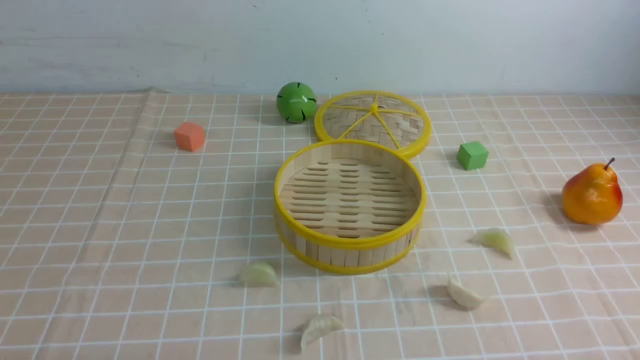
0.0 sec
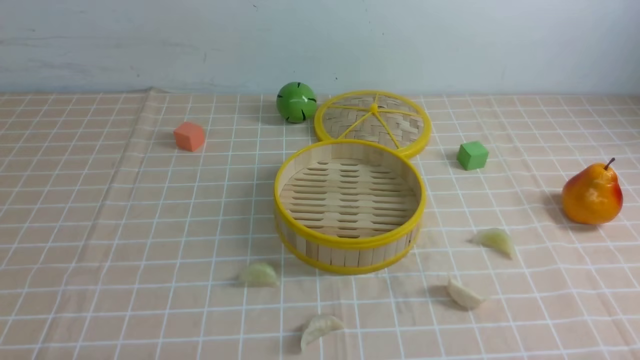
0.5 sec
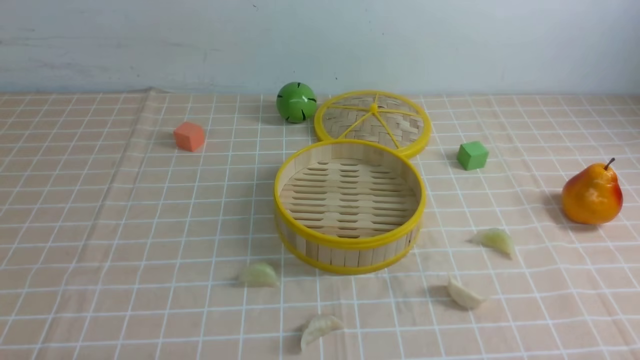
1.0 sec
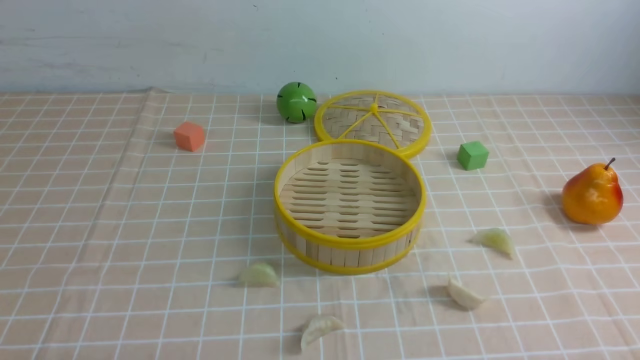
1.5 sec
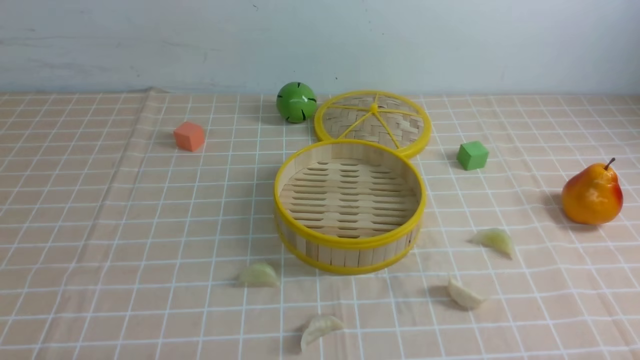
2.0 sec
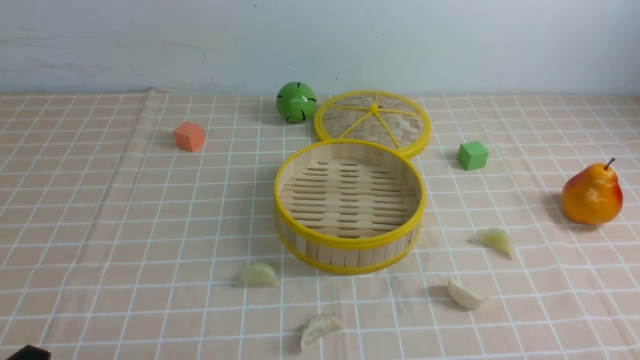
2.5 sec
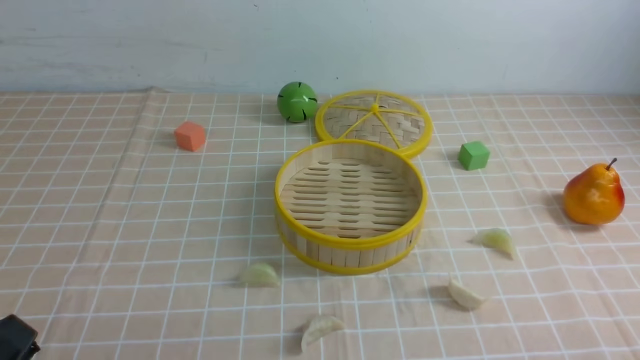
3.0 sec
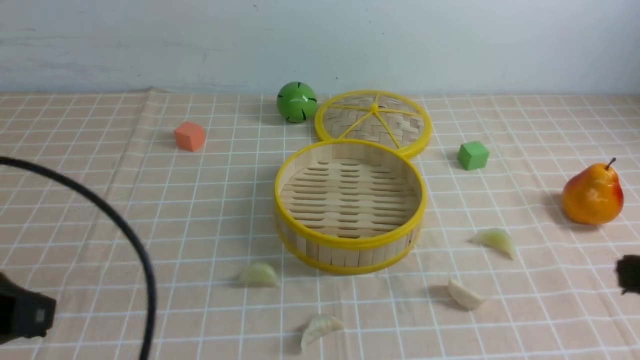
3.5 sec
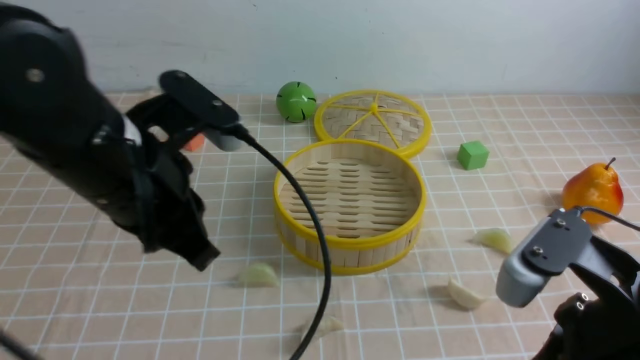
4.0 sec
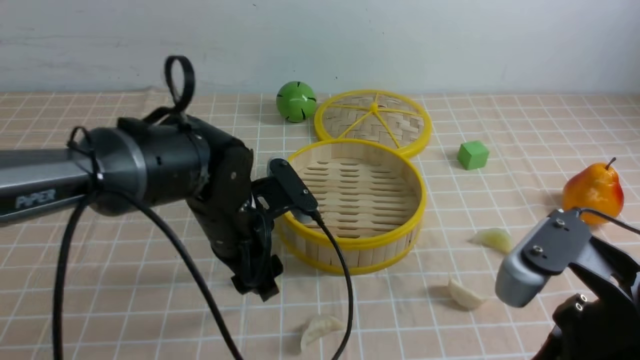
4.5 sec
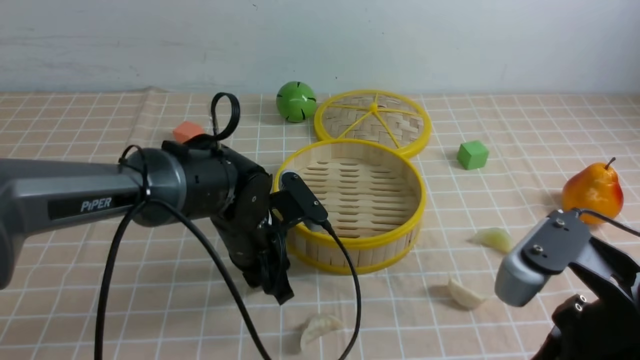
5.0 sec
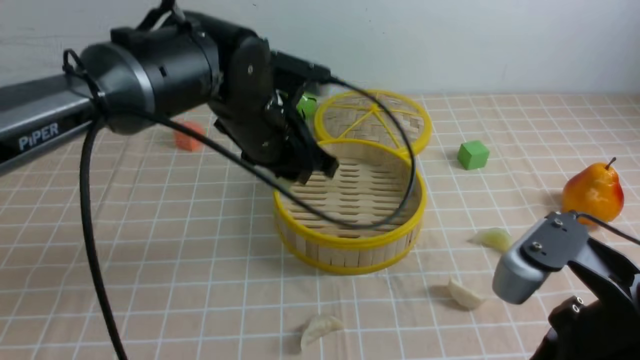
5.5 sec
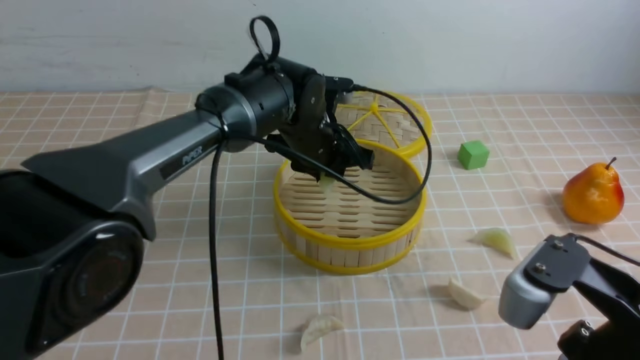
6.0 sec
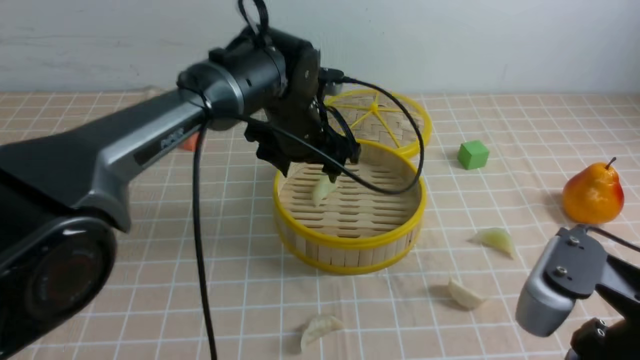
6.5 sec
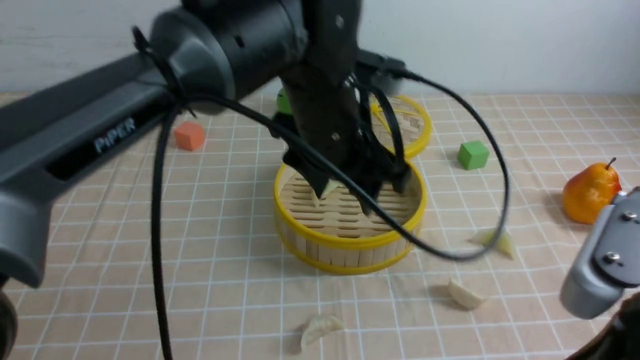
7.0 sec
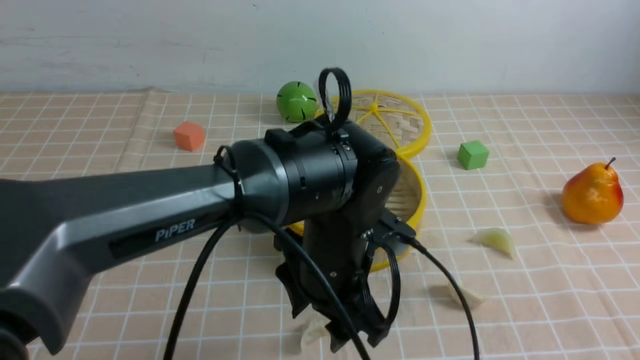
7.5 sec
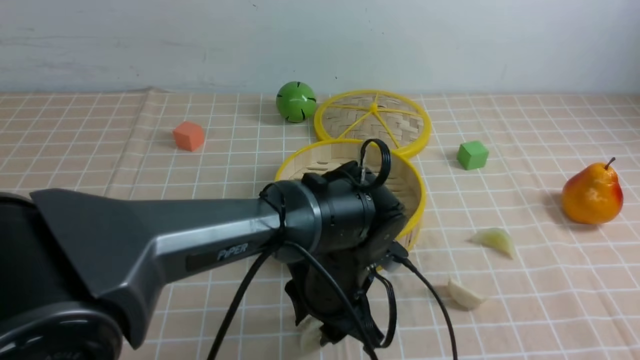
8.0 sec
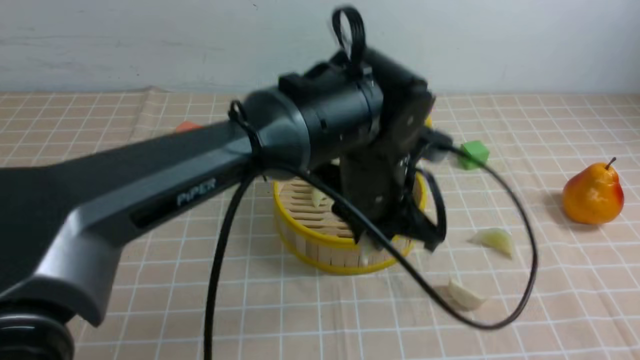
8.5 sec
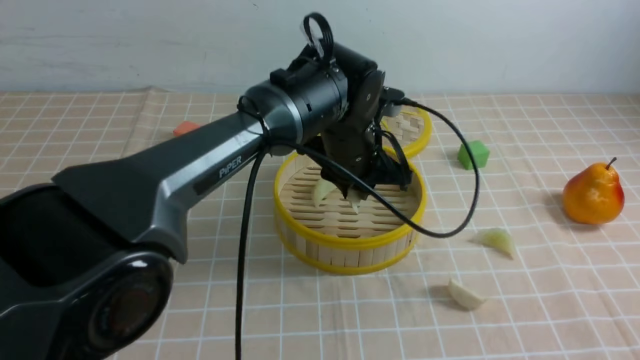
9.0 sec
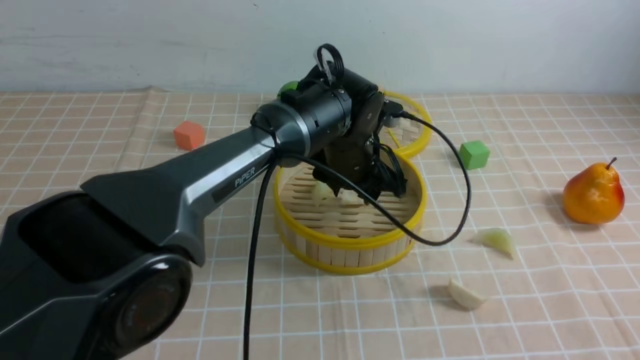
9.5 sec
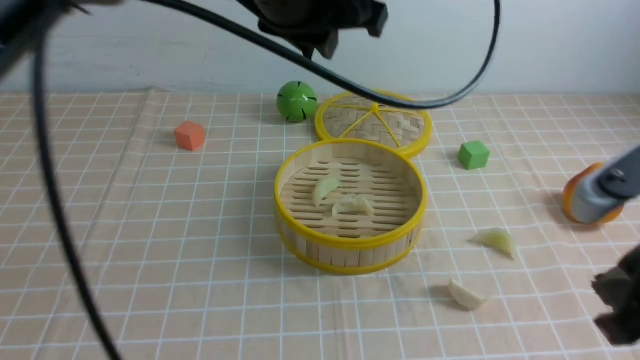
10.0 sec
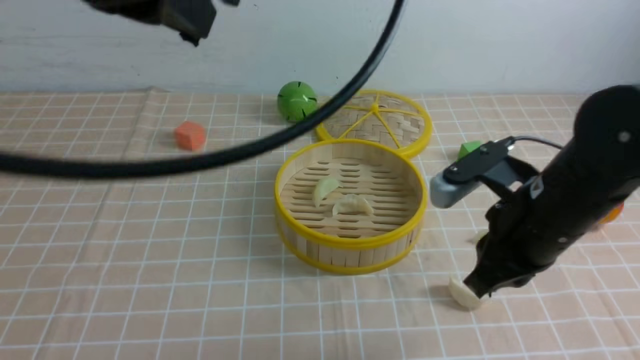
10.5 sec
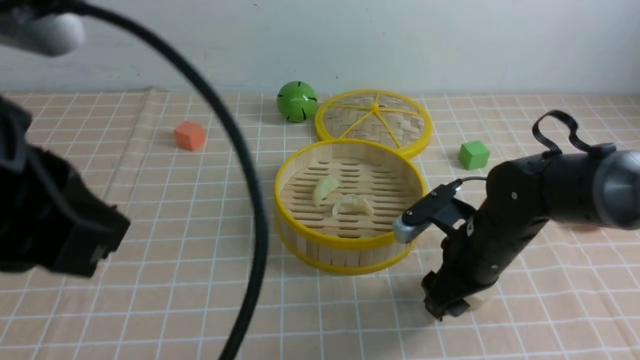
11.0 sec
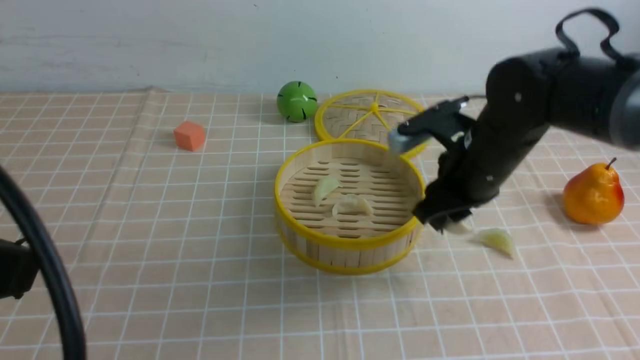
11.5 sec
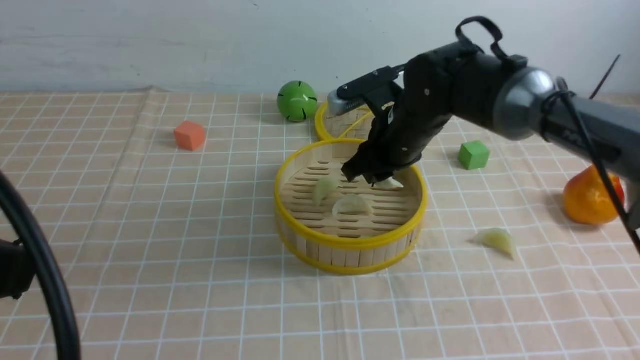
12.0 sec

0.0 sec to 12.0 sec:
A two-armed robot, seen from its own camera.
Task of the whole recording: put the dumplings into the steamer on the table with the brown tablecloth.
Step, 0.0 sec to 5.0 sec: use the left arm to grab a dumpling.
Step, 5.5 sec to 6.5 sec: use the left arm to put the dumpling into the steamer.
Step, 7.0 sec to 8.0 sec: use the left arm to grab a dumpling.
Step, 8.5 sec to 9.5 sec: use the left arm to put the dumpling into the steamer.
Step, 10.0 sec to 11.0 sec: use the right arm to grab a dumpling.
2.0 sec to 4.0 sec: The right gripper goes approximately 20 cm upward, to the left and forward, and closes. The left gripper shifts approximately 25 cm forward, upward and to the right.
4.0 sec to 6.0 sec: The left gripper is displaced forward and to the right by about 25 cm, and opens its fingers.
6.0 sec to 8.0 sec: The right gripper heads backward, to the right and upward, covering roughly 15 cm; the left gripper shifts approximately 15 cm backward and downward.
8.0 sec to 10.0 sec: The left gripper swings up and down, approximately 25 cm each way, with 2 reversals, while the right gripper goes about 10 cm forward.
10.0 sec to 12.0 sec: The right gripper moves forward and to the left, some 30 cm, and opens. The left gripper is displaced backward and to the left by approximately 35 cm, and closes up.

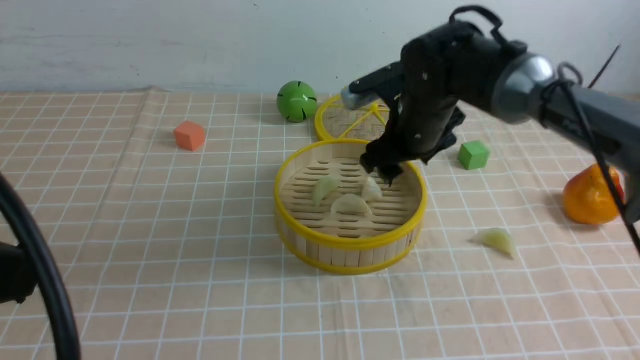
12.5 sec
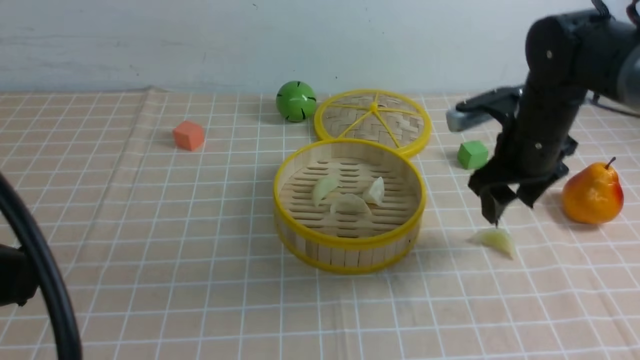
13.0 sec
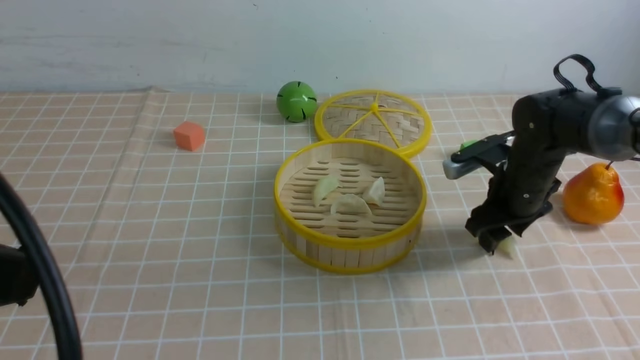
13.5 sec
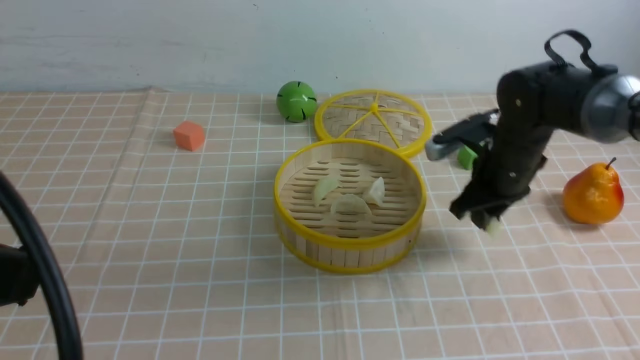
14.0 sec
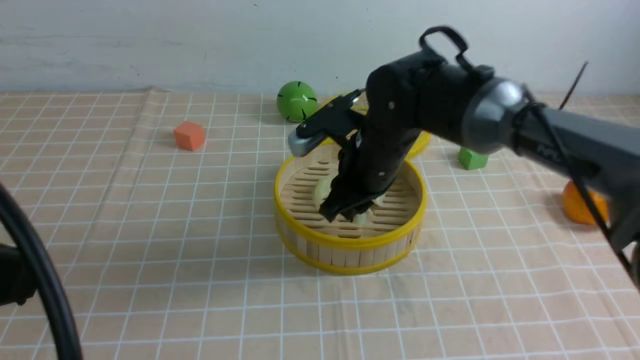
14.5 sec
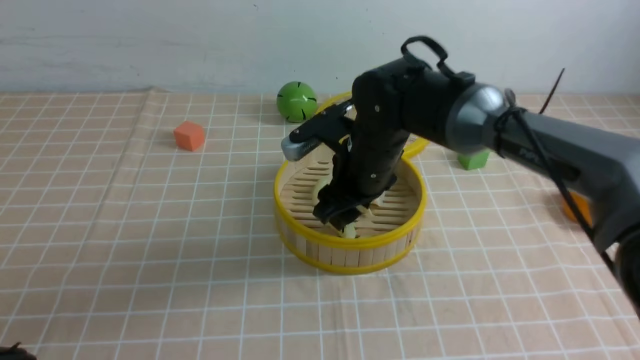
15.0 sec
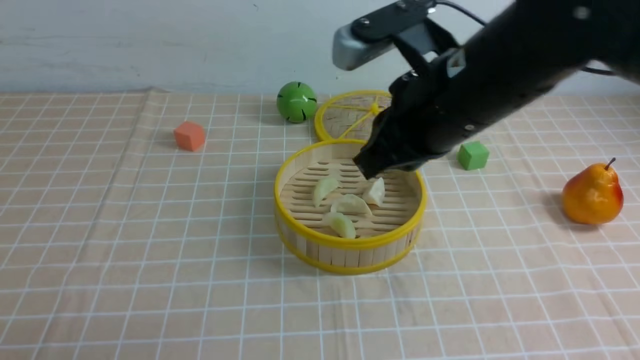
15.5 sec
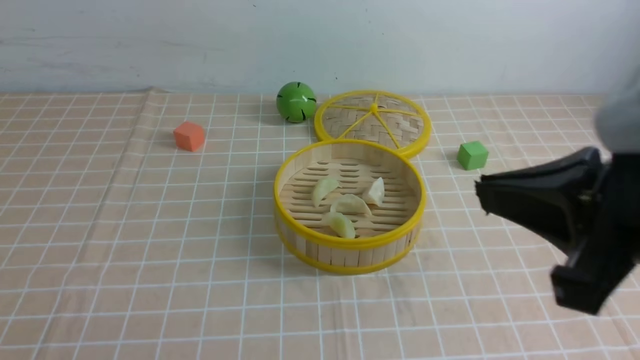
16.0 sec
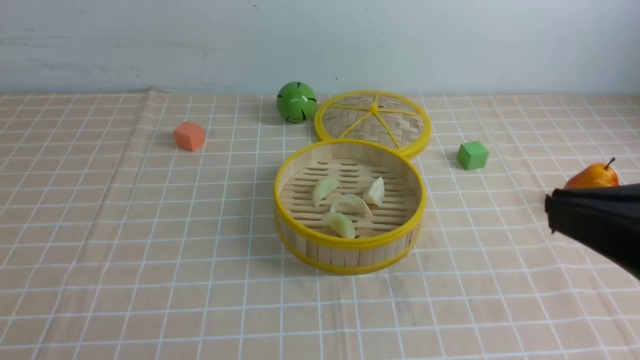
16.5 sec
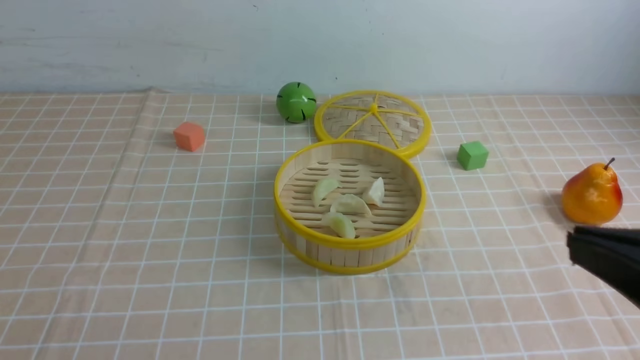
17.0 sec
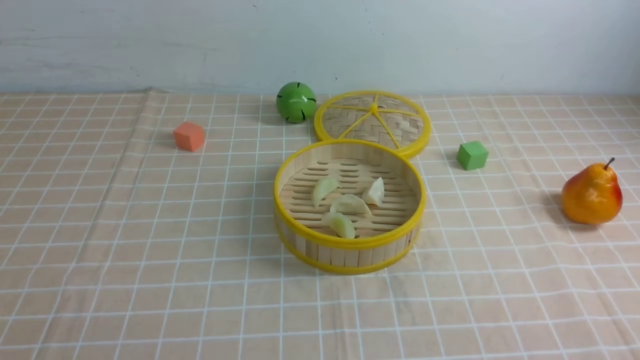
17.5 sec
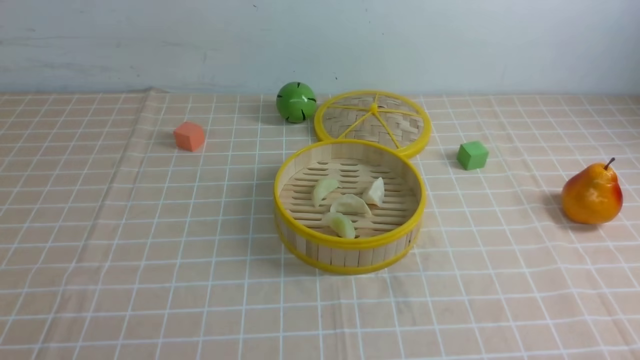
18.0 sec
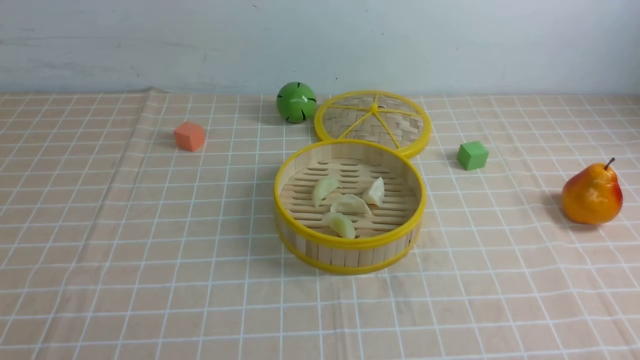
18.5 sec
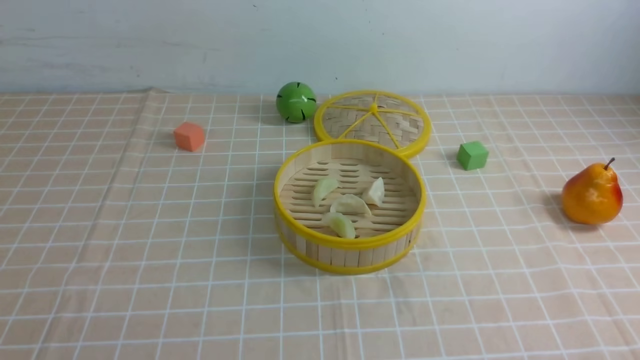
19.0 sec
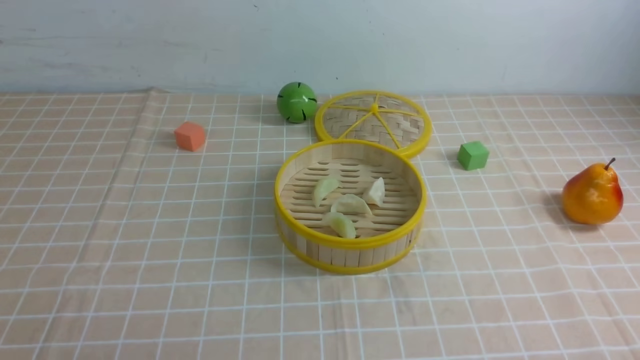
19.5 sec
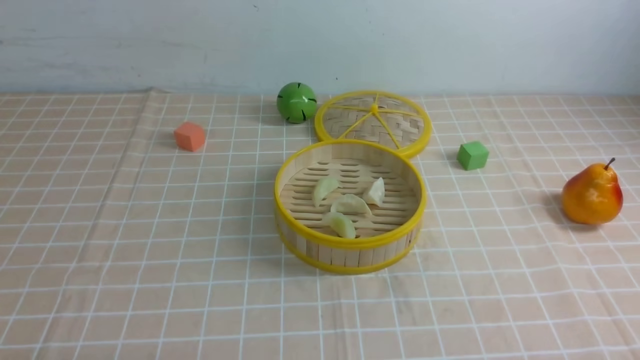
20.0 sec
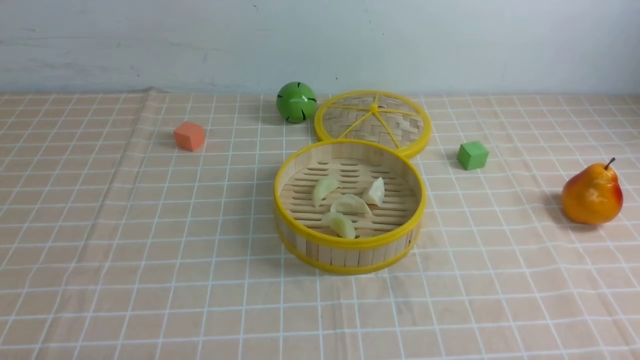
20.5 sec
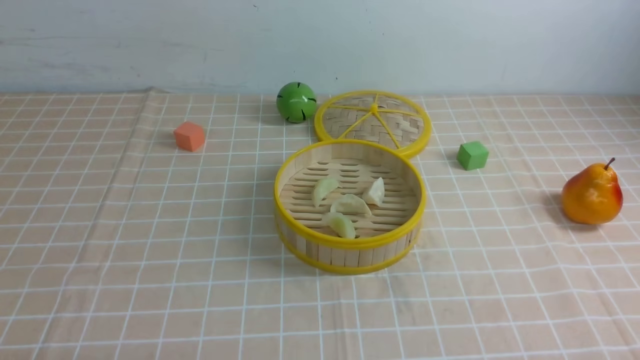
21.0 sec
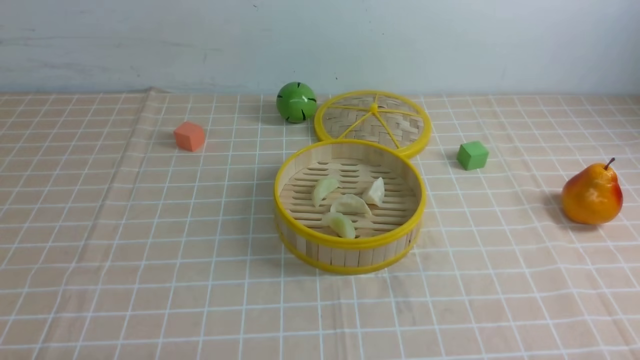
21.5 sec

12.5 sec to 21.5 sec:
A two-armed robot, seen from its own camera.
Task of the whole recording: put the dumplings into the steamer on the table with the brown tablecloth.
Step, 13.0 sec to 13.5 sec: use the right arm to grab a dumpling.
Step, 14.0 sec to 15.0 sec: use the right arm to put the dumpling into the steamer.
12.5 sec to 14.5 sec: The right gripper moves some 15 cm to the right and comes back, and closes up.
14.5 sec to 17.0 sec: The left gripper heads downward, backward and to the left, covering some 15 cm. Meanwhile the right gripper is displaced backward and to the right by some 35 cm, and closes up.
17.0 sec to 19.5 sec: The right gripper shifts roughly 20 cm downward and to the right.
